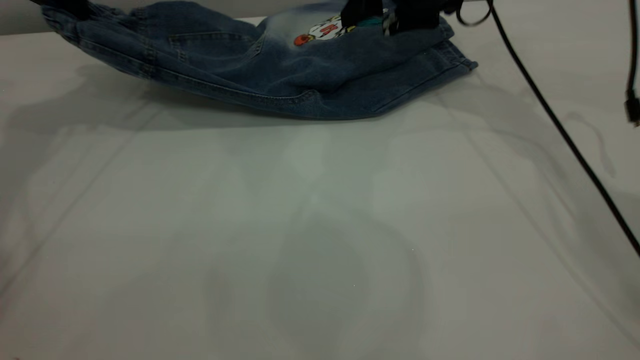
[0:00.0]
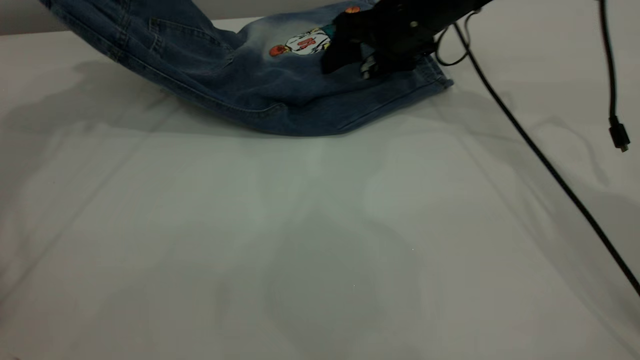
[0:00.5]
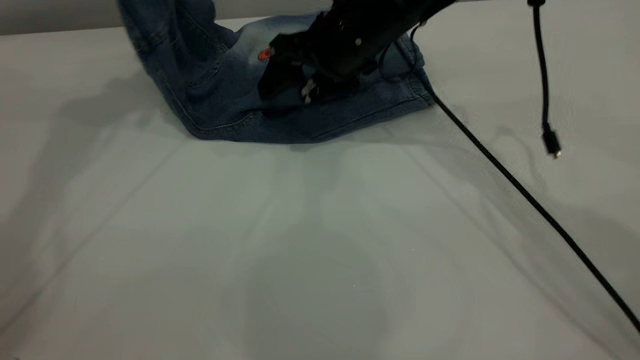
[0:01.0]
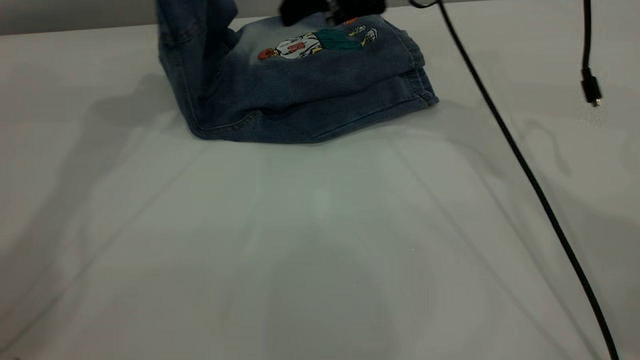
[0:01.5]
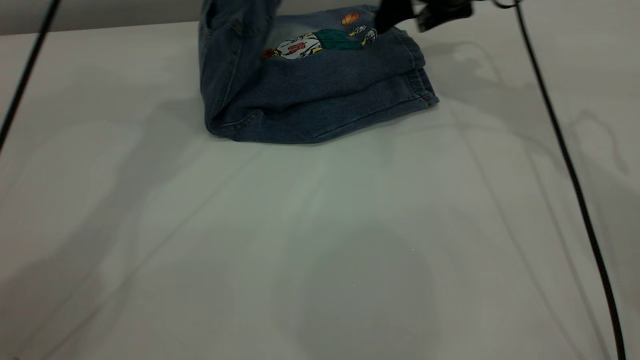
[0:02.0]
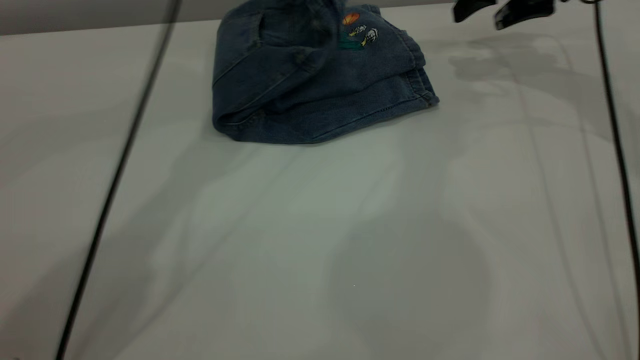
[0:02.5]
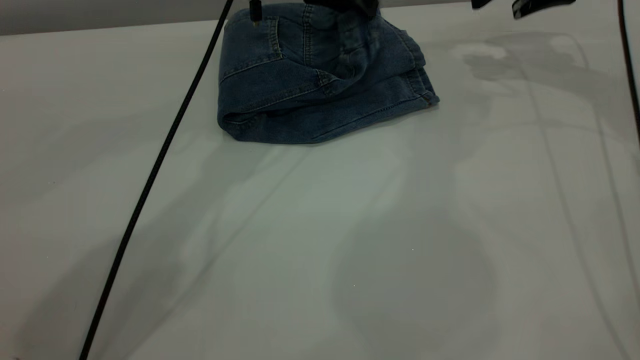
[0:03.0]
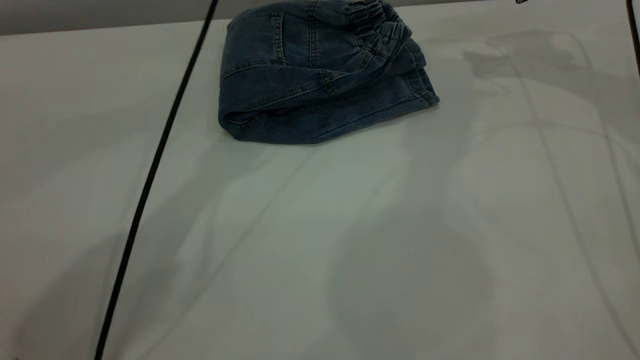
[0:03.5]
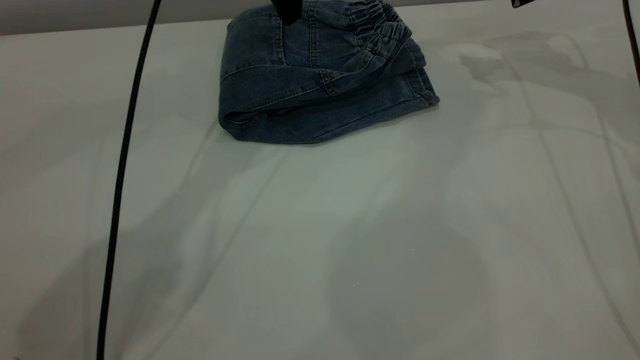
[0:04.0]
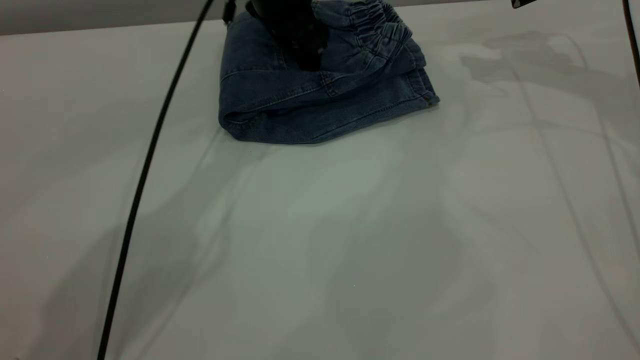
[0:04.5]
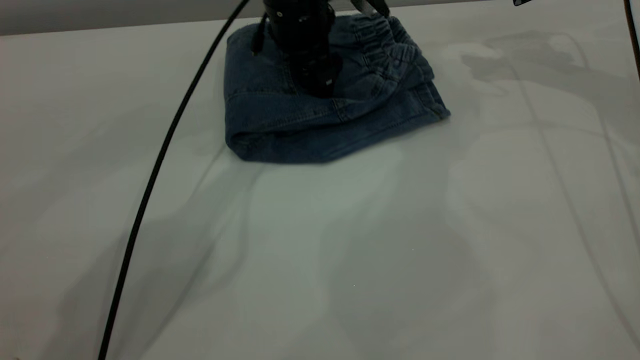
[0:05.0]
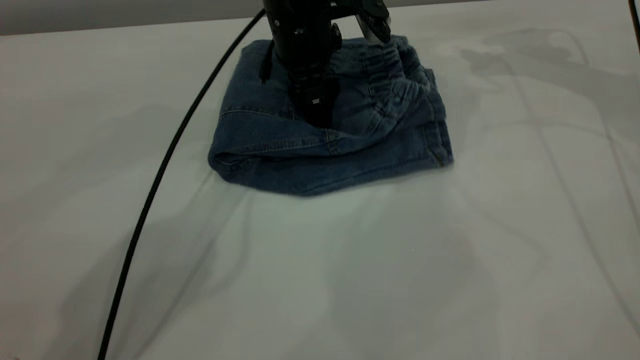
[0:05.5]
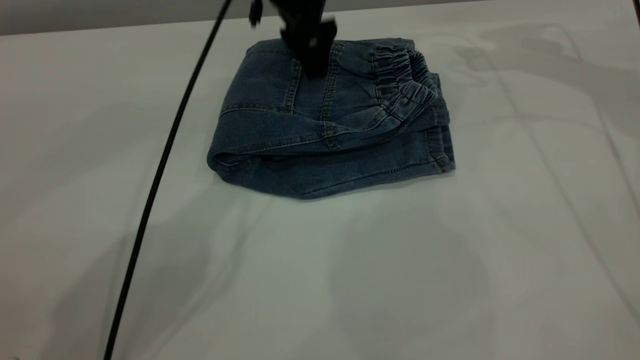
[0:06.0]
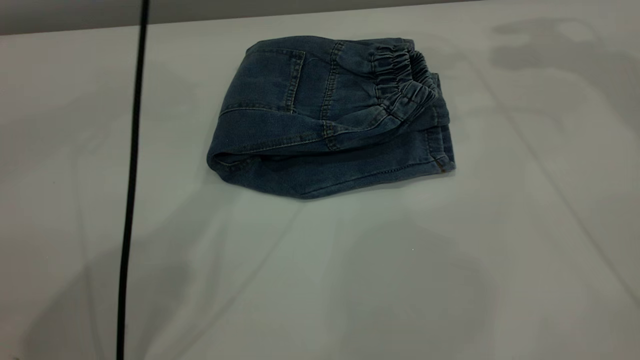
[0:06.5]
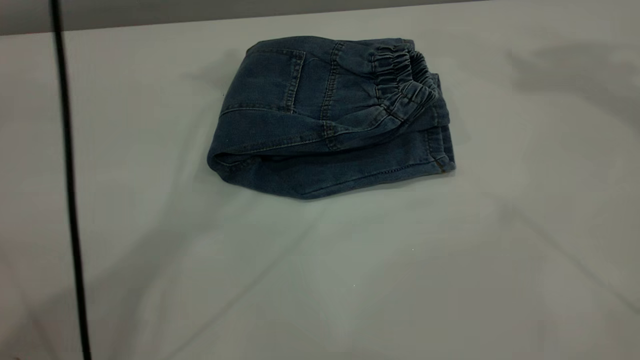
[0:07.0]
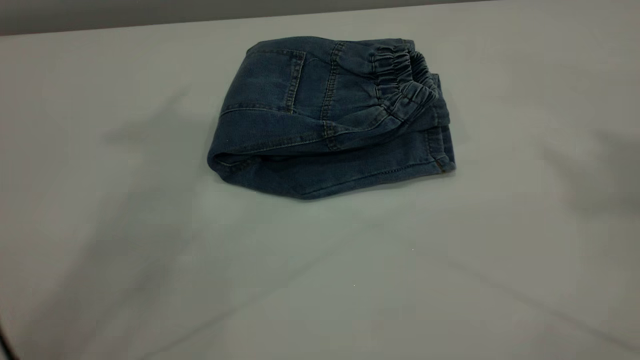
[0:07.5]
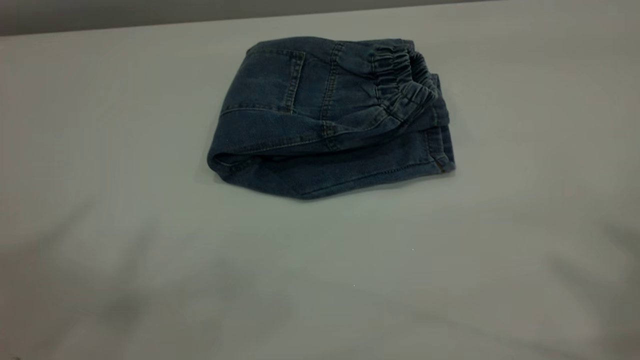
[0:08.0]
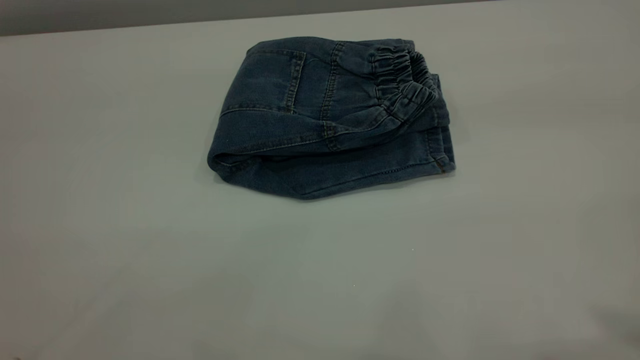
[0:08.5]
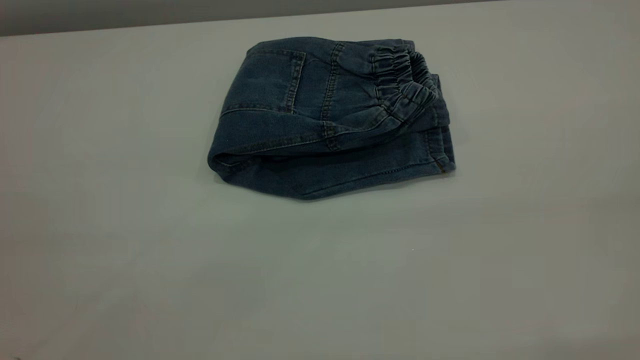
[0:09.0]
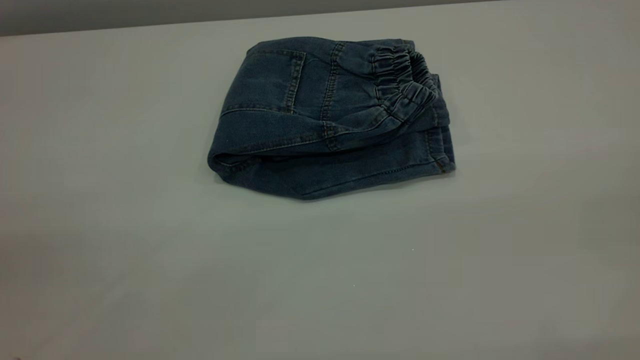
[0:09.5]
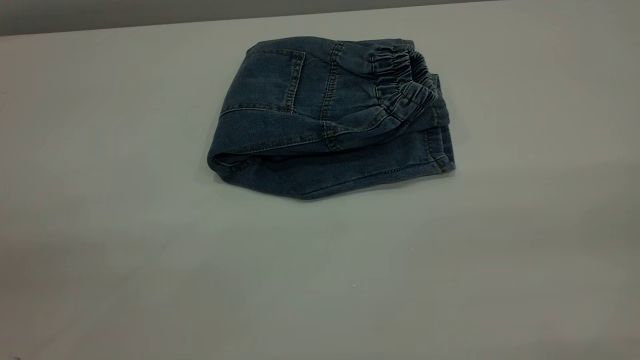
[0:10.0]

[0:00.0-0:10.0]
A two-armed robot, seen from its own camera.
Step, 0:00.0 to 0:03.5: Fold the pants from left to right.
0:00.0 to 0:02.0: The right gripper travels to the left and back again, approximately 10 cm each way, while the left gripper moves to the right, approximately 20 cm.
0:02.0 to 0:04.0: The left gripper moves downward and to the right, approximately 10 cm, and opens its fingers, while the right gripper is displaced to the right by some 10 cm.
0:04.0 to 0:06.0: The left gripper reaches approximately 10 cm downward, then returns.
0:06.0 to 0:08.0: The left gripper is displaced upward, backward and to the left by roughly 60 cm; the right gripper heads backward and upward, covering about 50 cm.

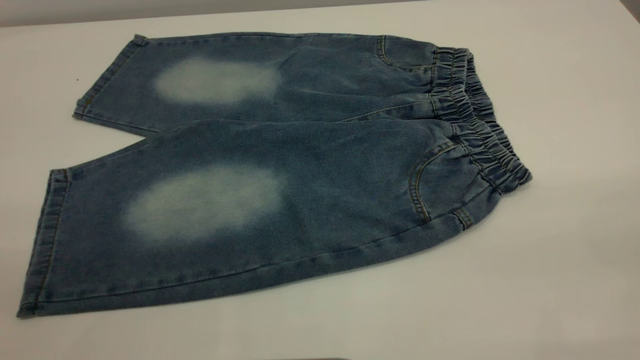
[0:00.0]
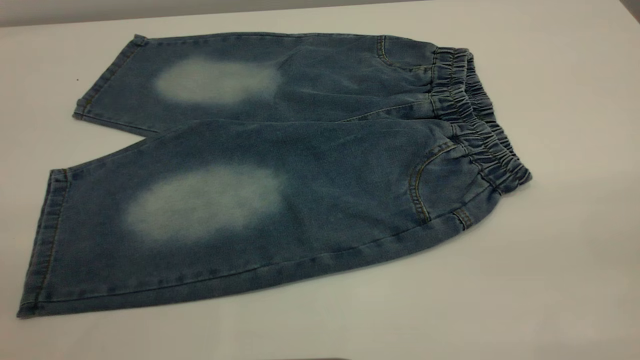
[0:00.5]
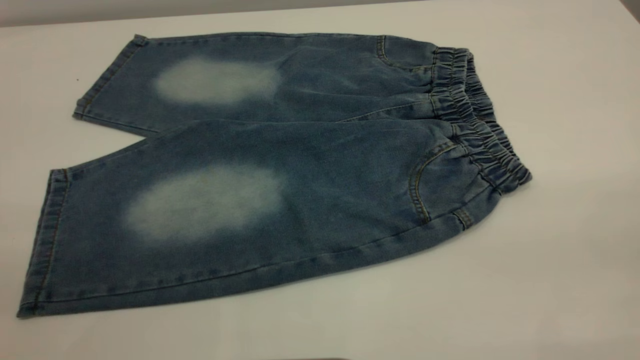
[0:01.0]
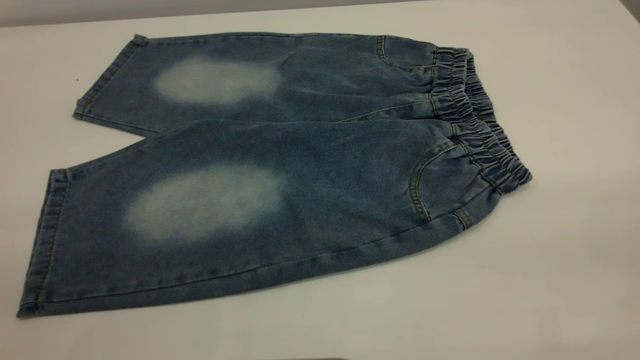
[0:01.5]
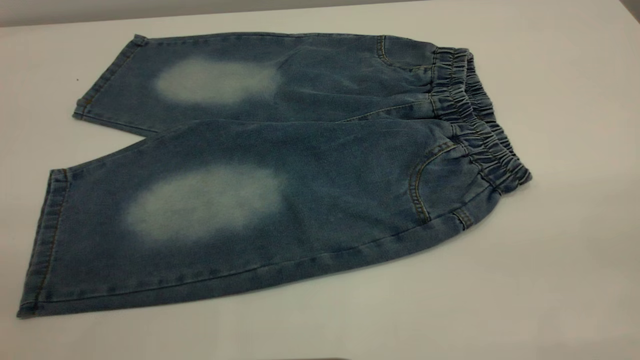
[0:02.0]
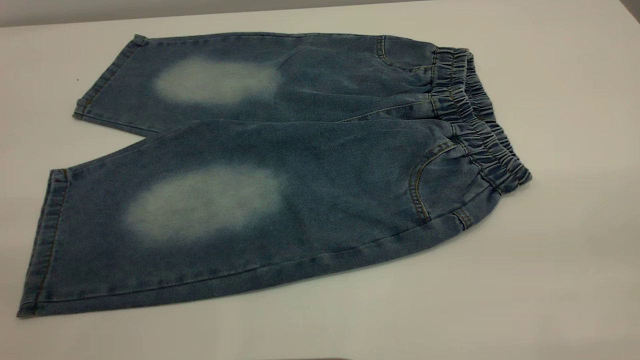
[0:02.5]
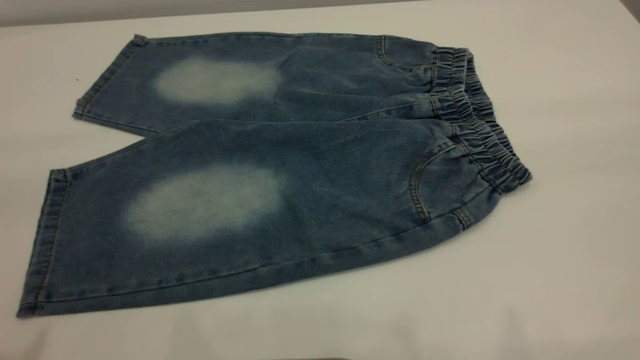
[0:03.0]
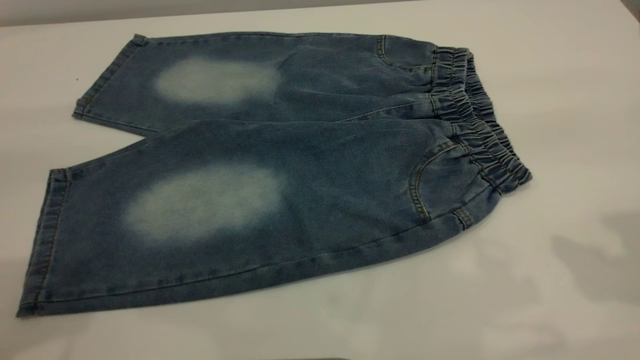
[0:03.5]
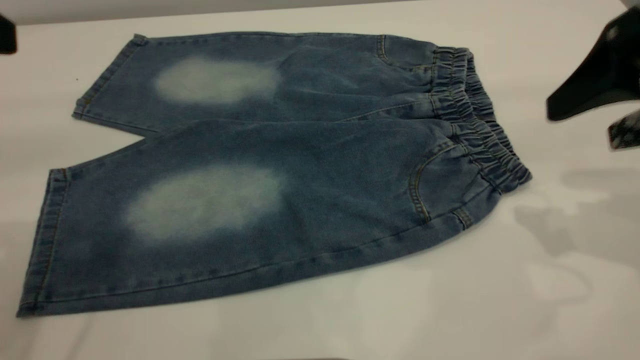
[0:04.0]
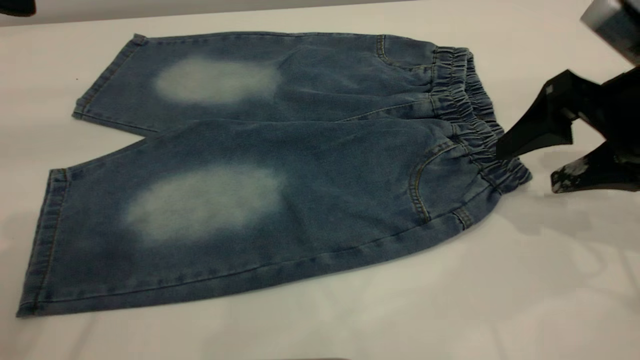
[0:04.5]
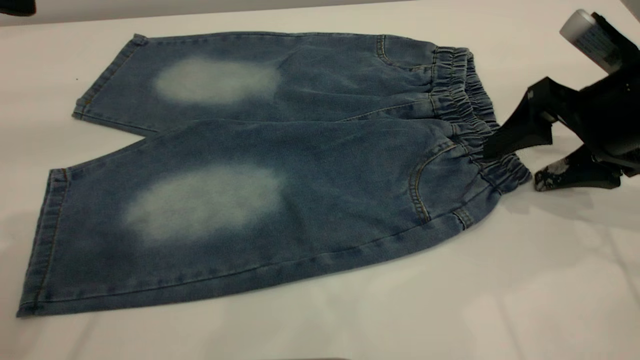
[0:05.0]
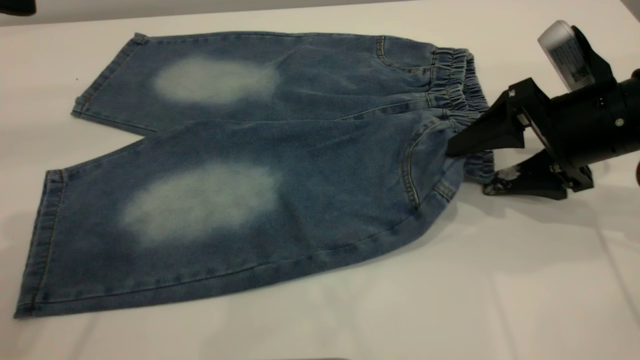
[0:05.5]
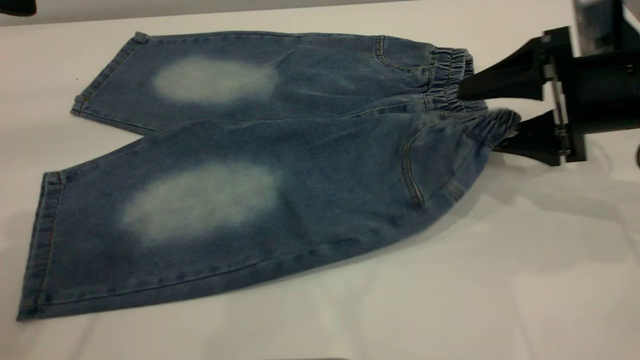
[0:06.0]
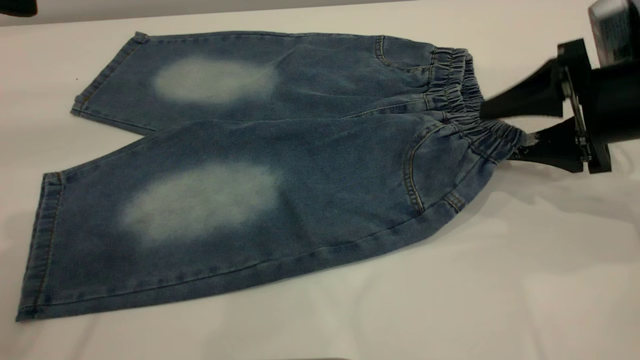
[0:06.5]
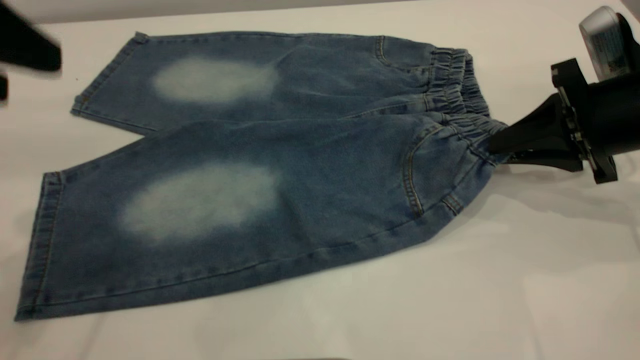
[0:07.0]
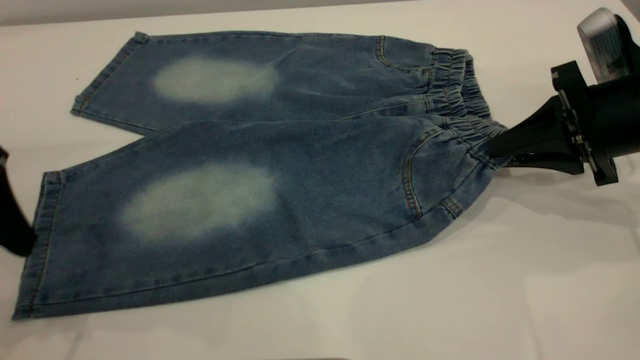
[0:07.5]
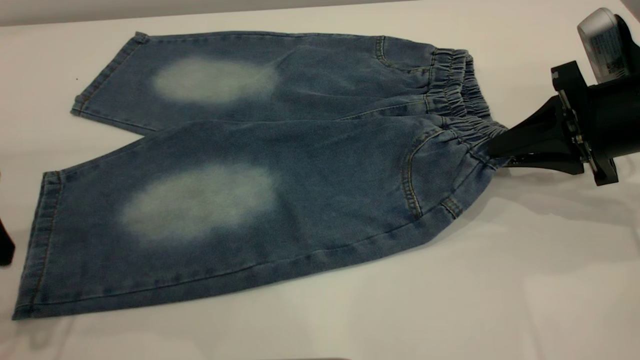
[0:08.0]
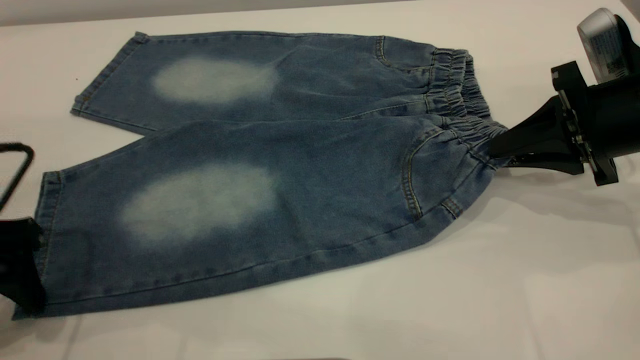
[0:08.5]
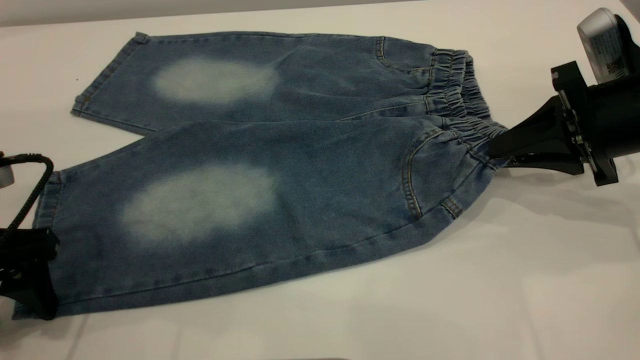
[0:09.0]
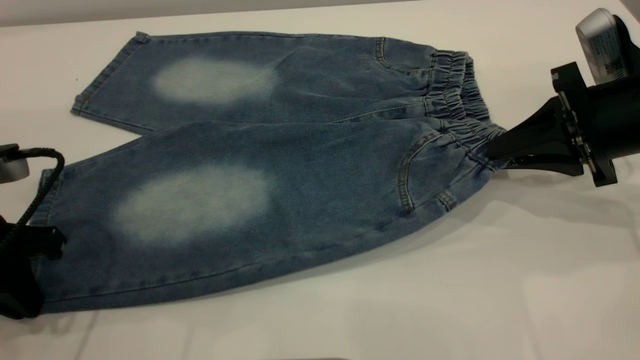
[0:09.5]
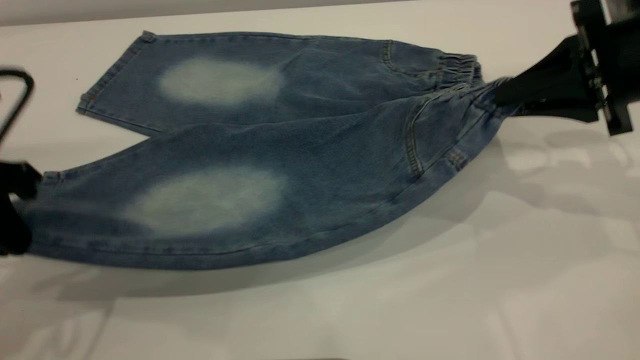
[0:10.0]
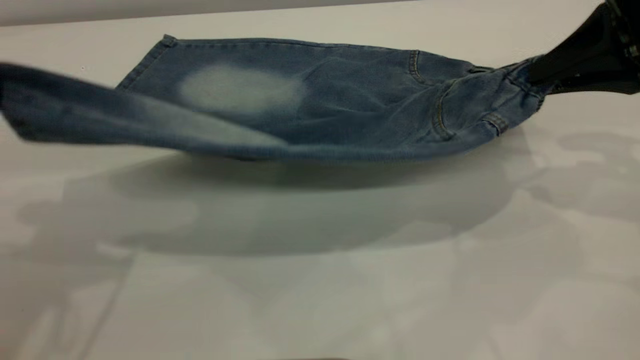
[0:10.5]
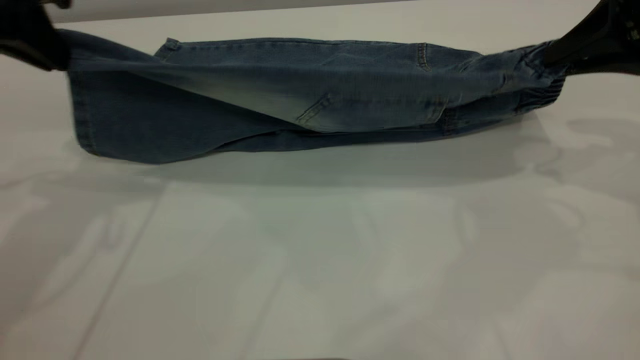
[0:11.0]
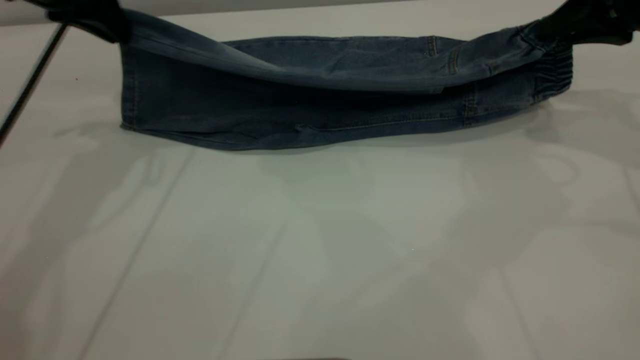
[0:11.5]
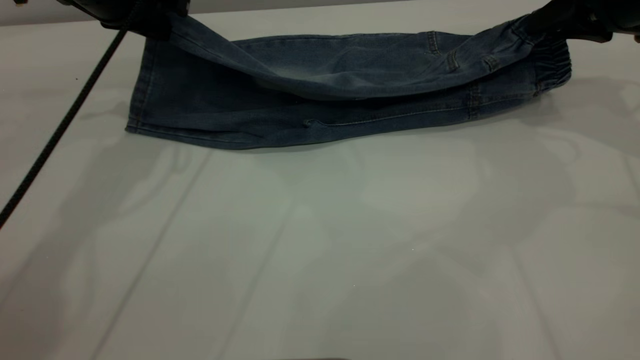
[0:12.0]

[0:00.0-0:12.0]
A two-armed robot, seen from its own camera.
0:00.0 to 0:02.0: Both grippers stay put.
0:02.0 to 0:04.0: The right gripper heads forward and downward, covering approximately 30 cm.
0:04.0 to 0:06.0: The right gripper goes roughly 10 cm downward and forward.
0:06.0 to 0:08.0: The right gripper closes; the left gripper is displaced downward by some 10 cm.
0:08.0 to 0:10.0: The left gripper reaches about 5 cm downward, then returns, and closes its fingers, while the right gripper is displaced upward by roughly 5 cm.
0:10.0 to 0:12.0: The right gripper is displaced forward by some 10 cm, while the left gripper travels forward by approximately 20 cm.
